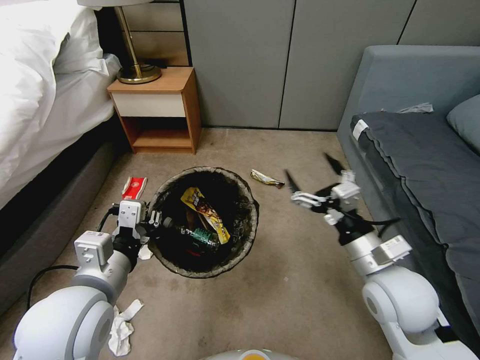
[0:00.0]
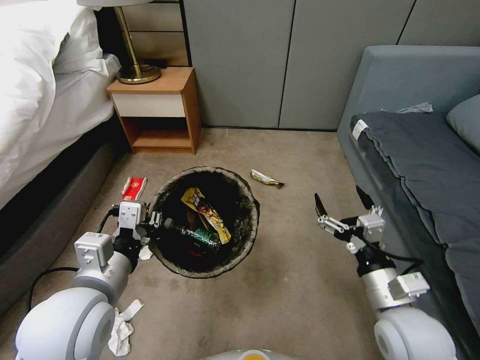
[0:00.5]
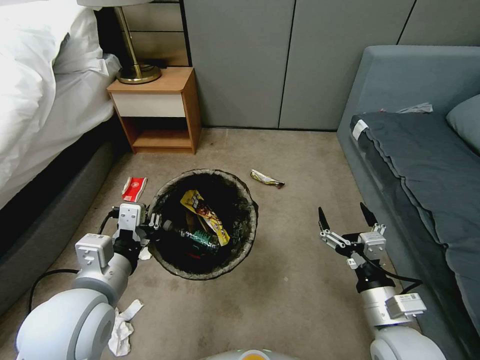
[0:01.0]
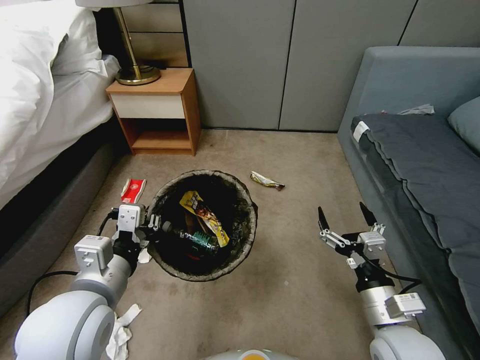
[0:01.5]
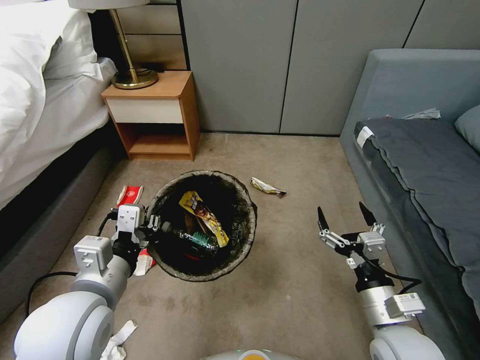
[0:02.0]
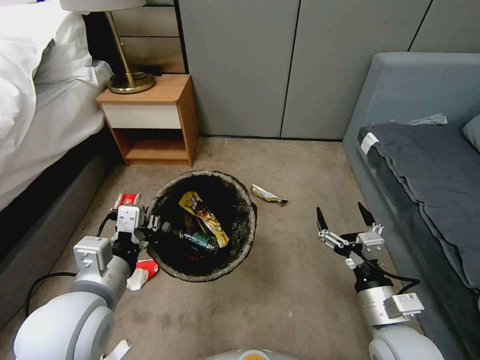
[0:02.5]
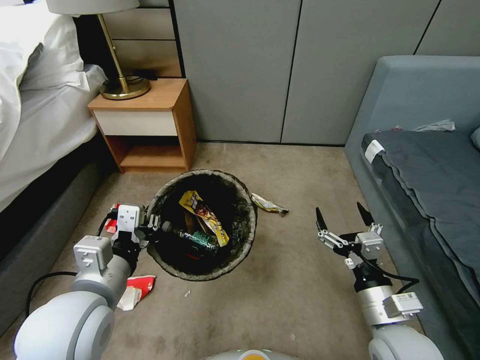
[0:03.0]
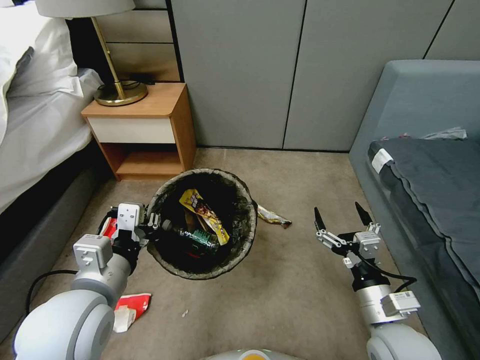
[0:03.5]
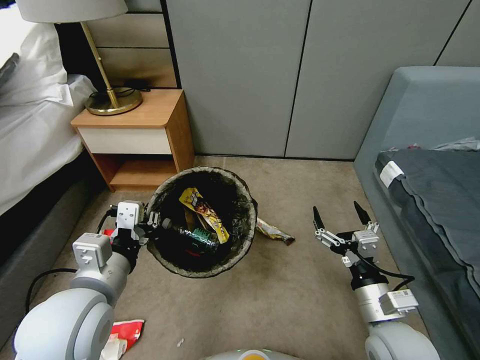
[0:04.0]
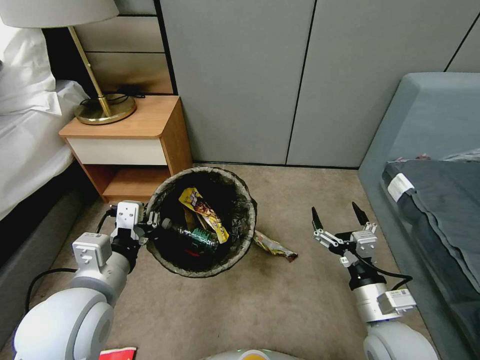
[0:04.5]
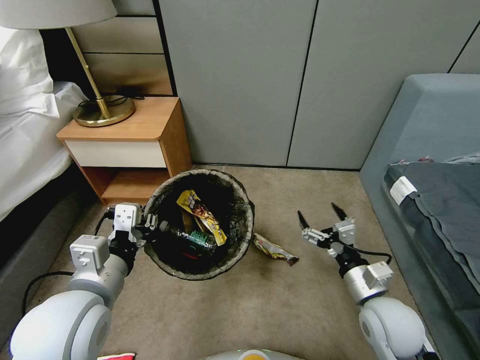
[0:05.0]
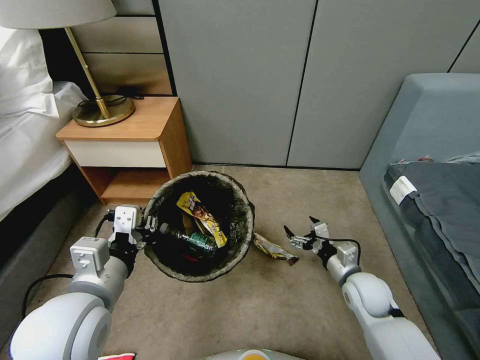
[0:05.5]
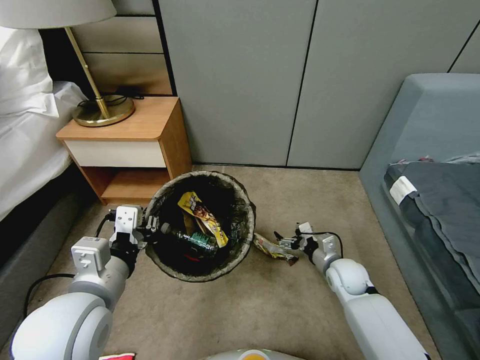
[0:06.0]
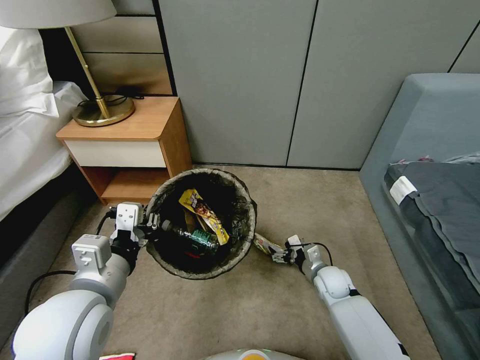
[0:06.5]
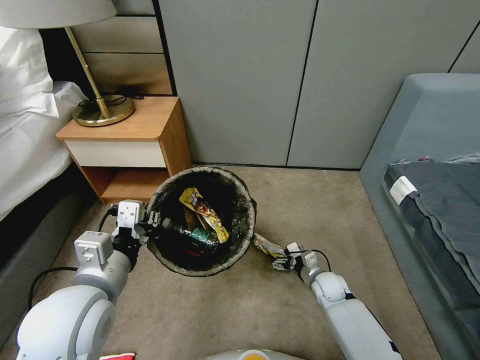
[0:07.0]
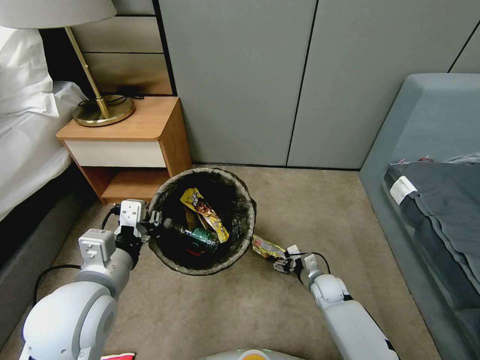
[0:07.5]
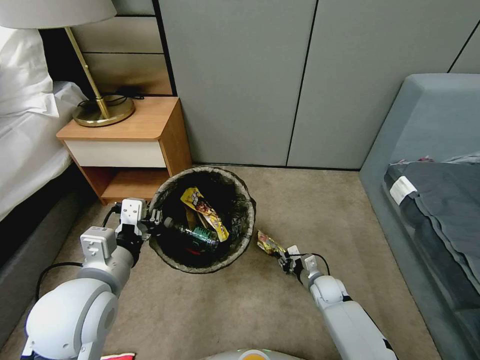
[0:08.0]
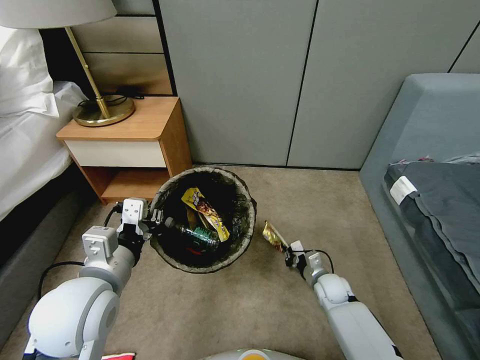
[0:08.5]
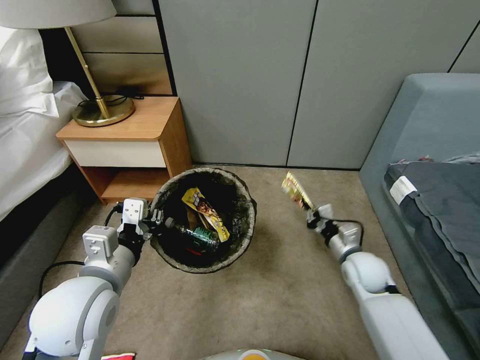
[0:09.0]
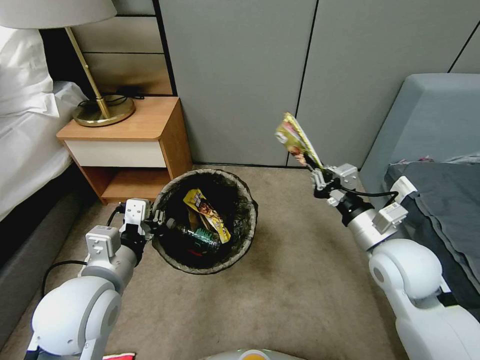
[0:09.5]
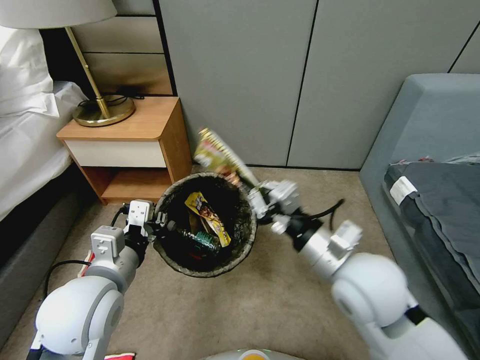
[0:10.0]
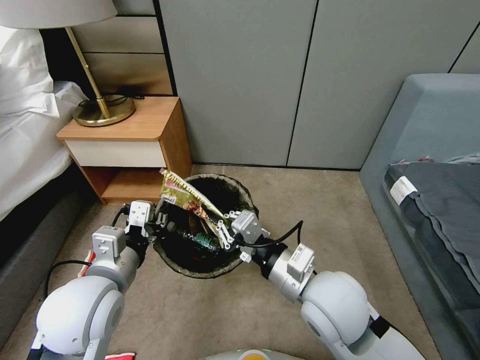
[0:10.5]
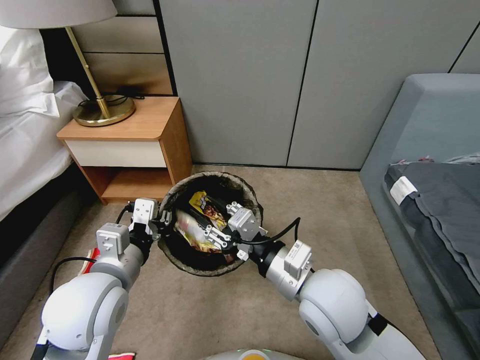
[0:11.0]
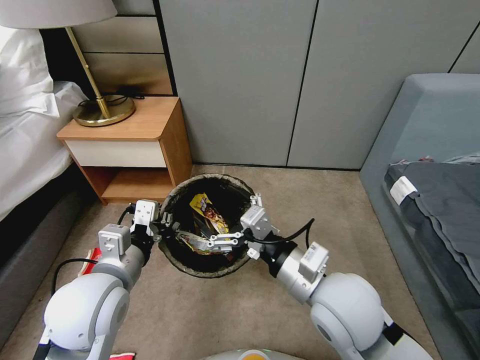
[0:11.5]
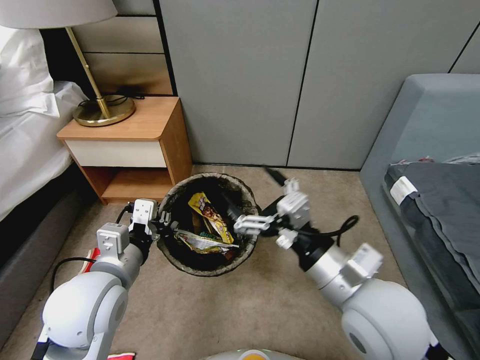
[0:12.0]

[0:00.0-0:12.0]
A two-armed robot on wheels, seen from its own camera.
Task of the whole recording: Pick up the trash bin, then pick up the garbage from the floor and place it into the trash bin.
0.0 to 2.0 s: The right gripper is displaced downward and backward by approximately 10 cm.
4.0 to 6.0 s: The right gripper travels forward and downward by about 25 cm.
6.0 to 8.0 s: The right gripper heads downward, covering approximately 10 cm, and closes its fingers.
8.0 to 10.0 s: The right gripper moves upward, about 40 cm.
10.0 to 12.0 s: The right gripper opens.

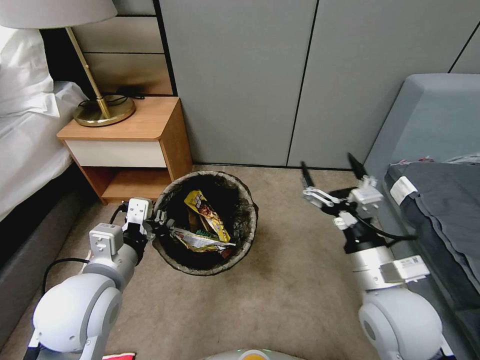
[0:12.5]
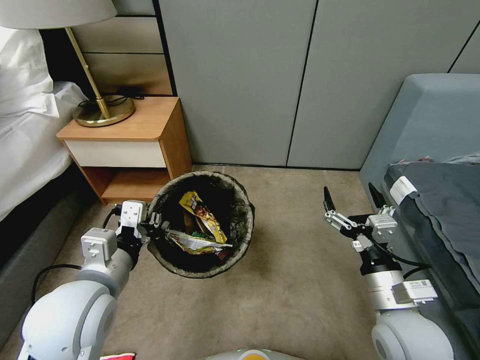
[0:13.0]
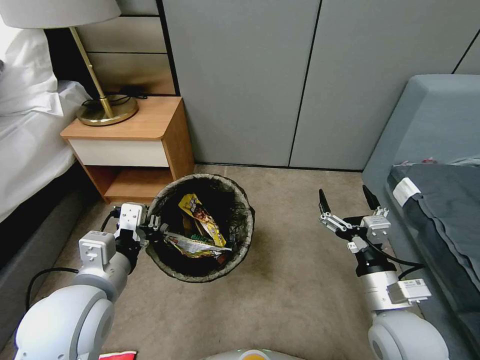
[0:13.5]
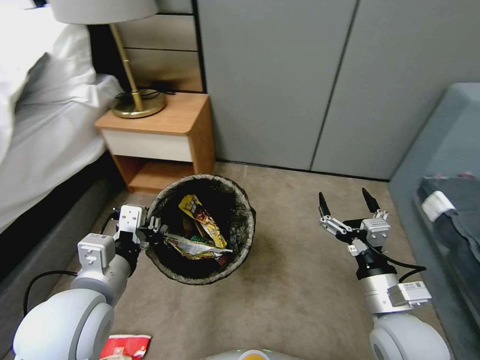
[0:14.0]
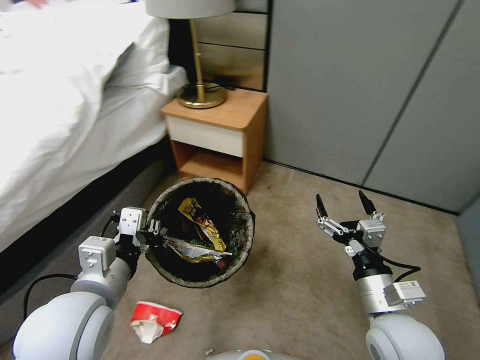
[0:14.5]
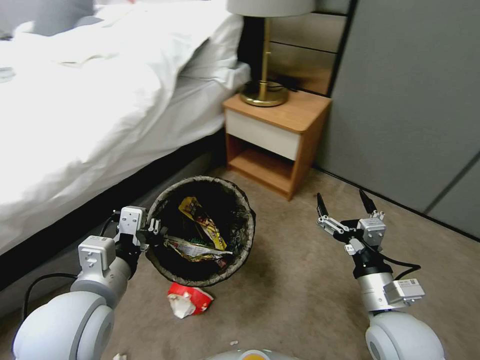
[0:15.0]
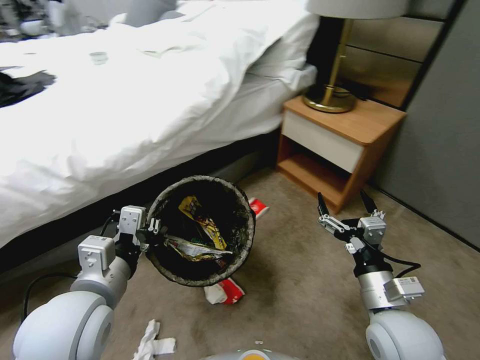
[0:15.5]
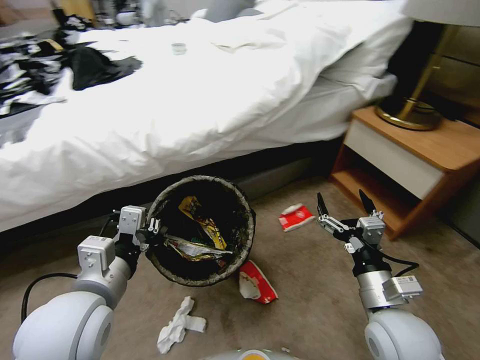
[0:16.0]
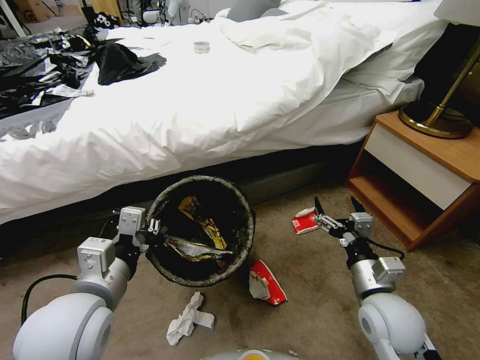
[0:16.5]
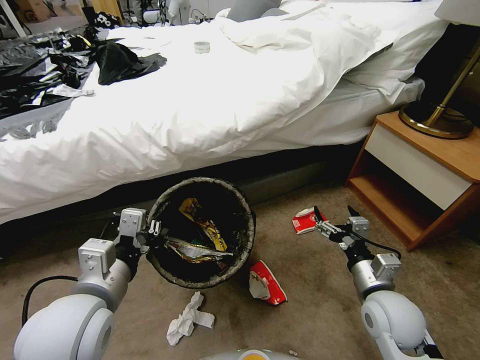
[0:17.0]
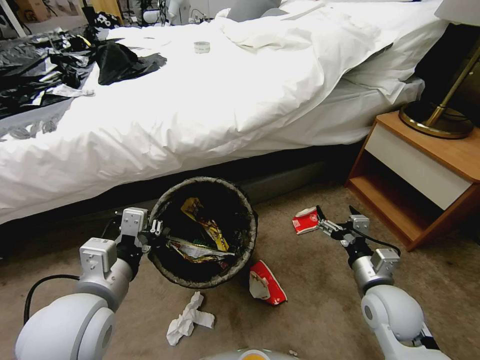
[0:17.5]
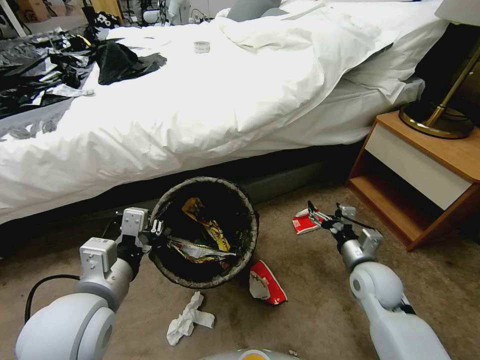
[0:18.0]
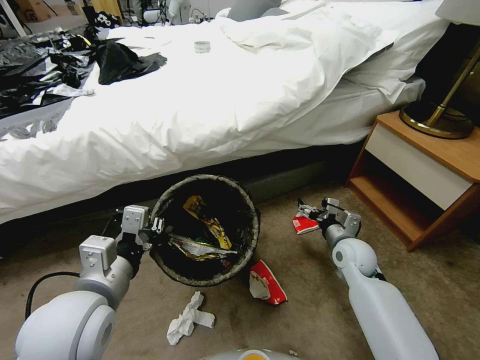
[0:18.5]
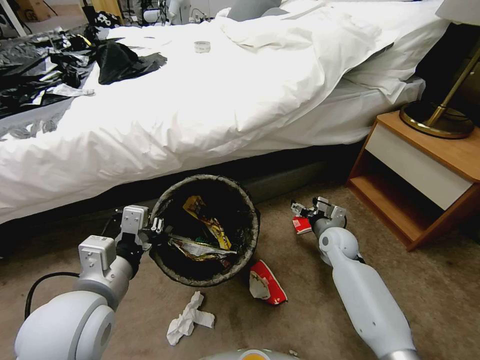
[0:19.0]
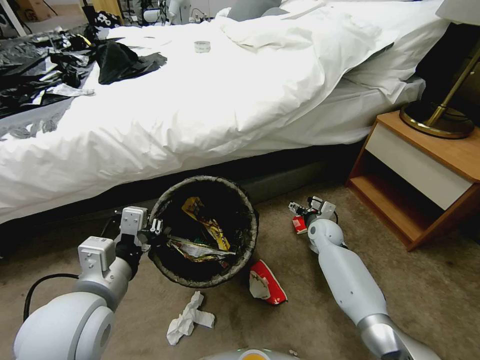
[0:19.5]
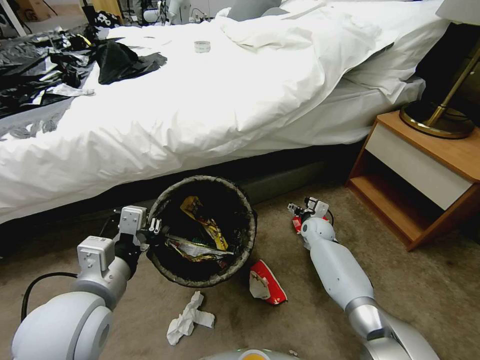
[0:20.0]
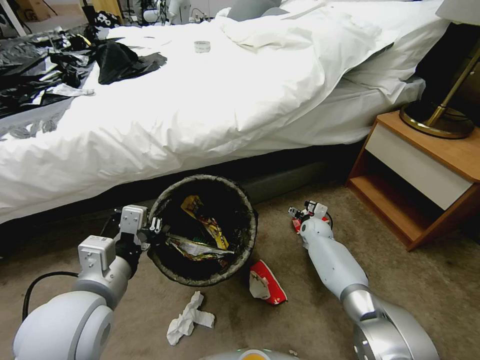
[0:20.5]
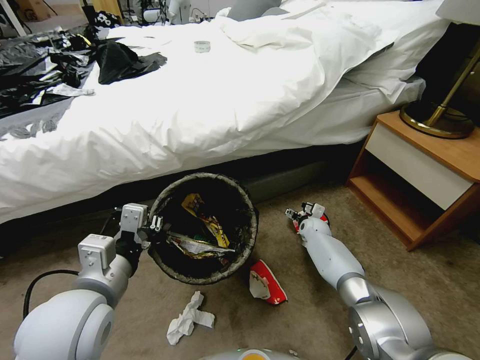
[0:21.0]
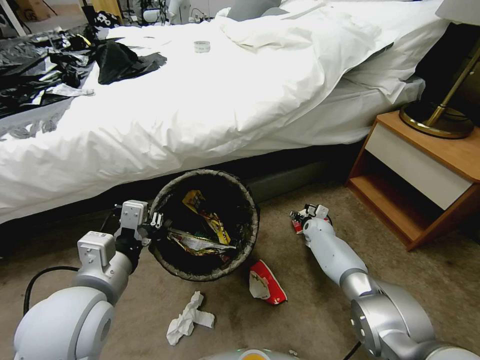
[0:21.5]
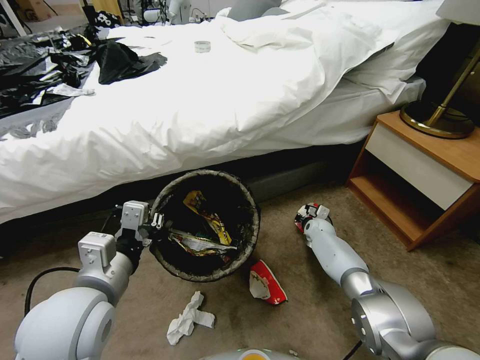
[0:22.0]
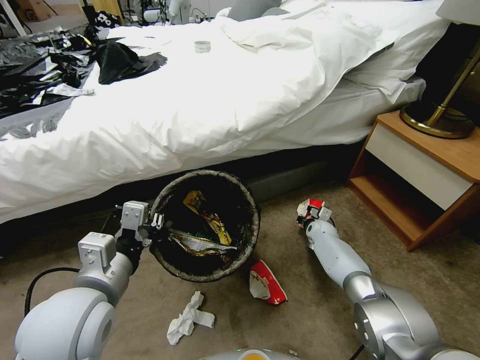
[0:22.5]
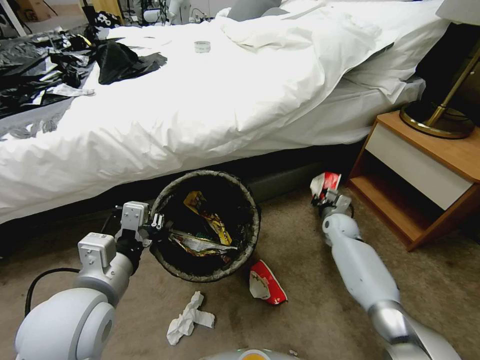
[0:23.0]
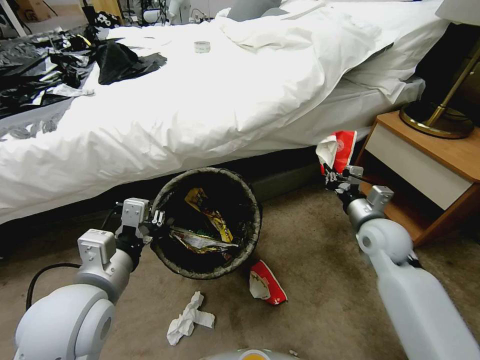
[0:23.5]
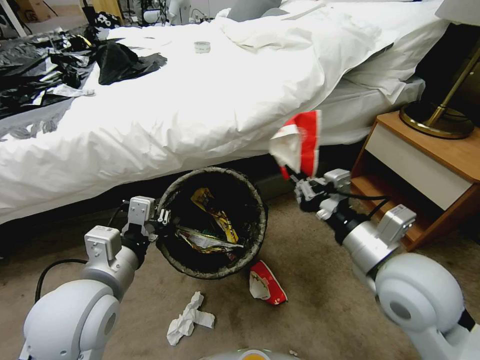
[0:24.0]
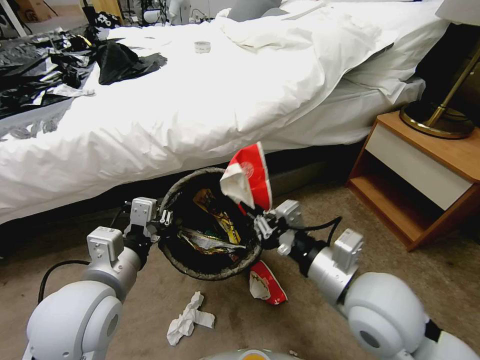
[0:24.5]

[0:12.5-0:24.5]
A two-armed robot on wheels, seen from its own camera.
Task of the whole recording: Pick up the trash bin, then pick up the garbage from the floor and place it into the trash bin.
12.5 to 14.5 s: The right gripper moves downward, roughly 5 cm.
14.5 to 16.5 s: The right gripper moves about 5 cm.
16.5 to 18.5 s: The right gripper heads forward and downward, covering roughly 15 cm.
18.5 to 20.5 s: The right gripper moves forward and downward, some 20 cm.
20.5 to 22.5 s: The right gripper closes up.
22.5 to 24.5 s: The right gripper moves upward and backward, approximately 40 cm.

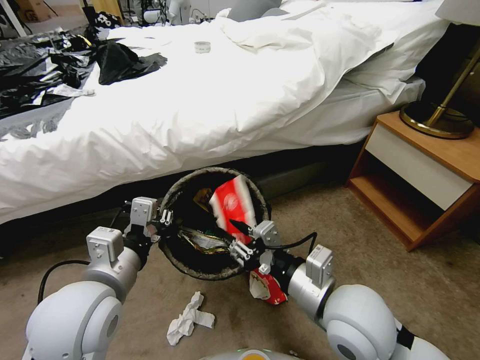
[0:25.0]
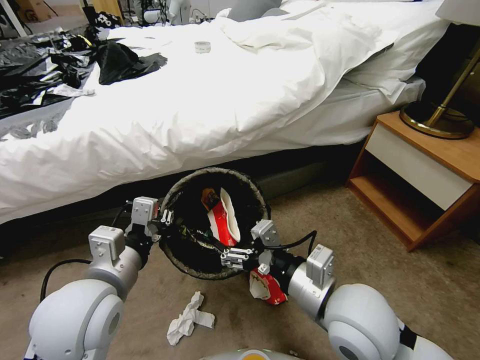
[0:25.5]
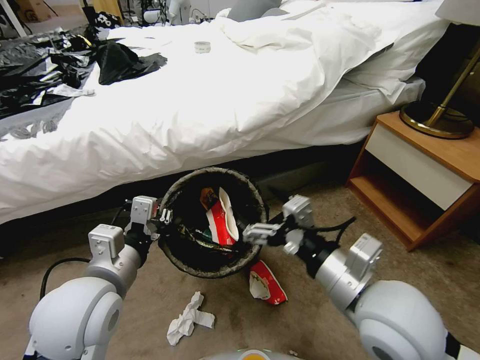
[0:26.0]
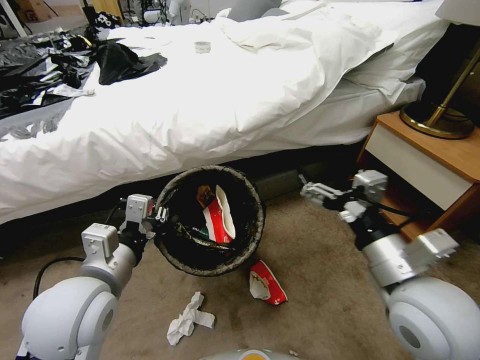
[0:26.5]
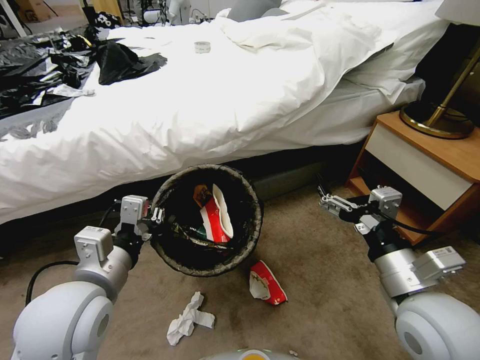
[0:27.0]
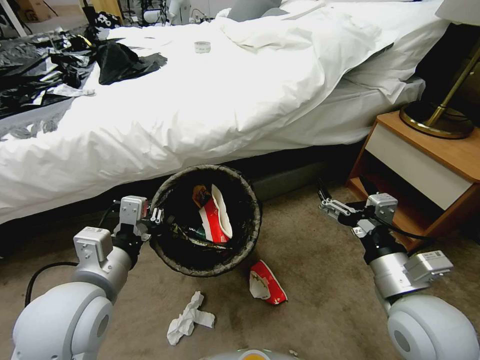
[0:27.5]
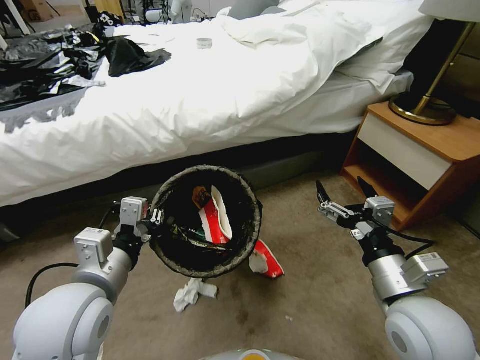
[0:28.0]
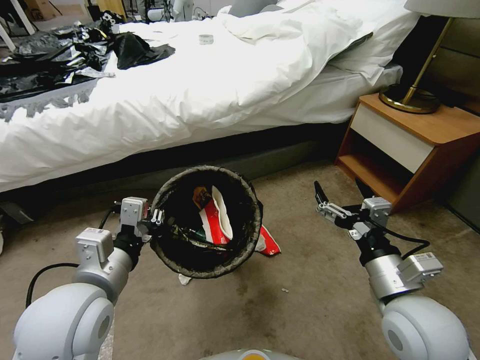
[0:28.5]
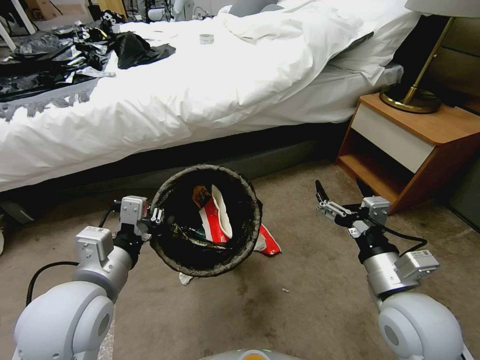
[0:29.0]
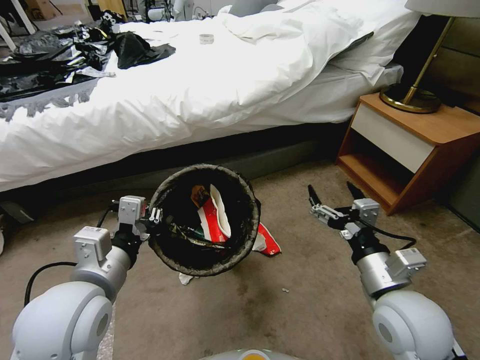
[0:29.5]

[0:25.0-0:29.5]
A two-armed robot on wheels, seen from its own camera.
Task of the whole recording: Pick up the trash bin, then pick up the garbage from the floor and place it into the trash bin.
25.0 to 27.0 s: The right gripper shifts roughly 10 cm to the right, and opens up.
27.0 to 29.5 s: The right gripper shifts by about 5 cm.
